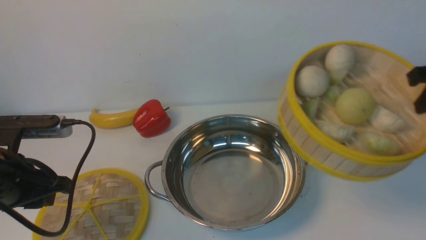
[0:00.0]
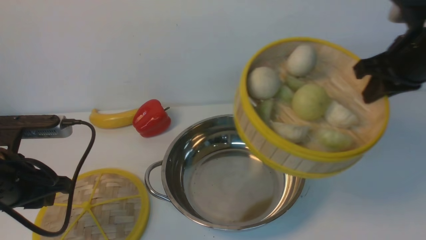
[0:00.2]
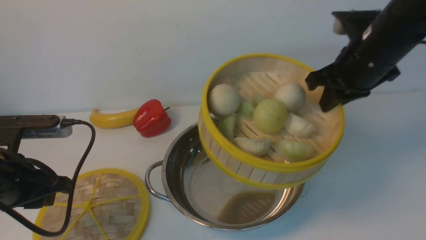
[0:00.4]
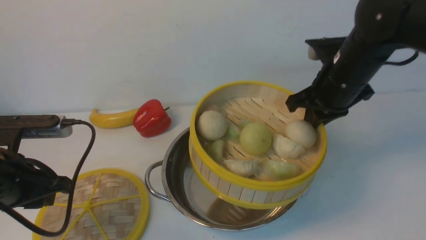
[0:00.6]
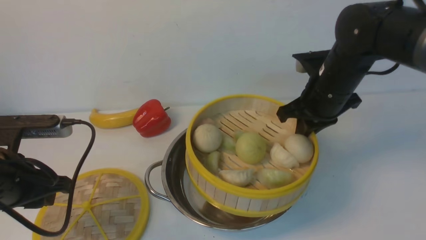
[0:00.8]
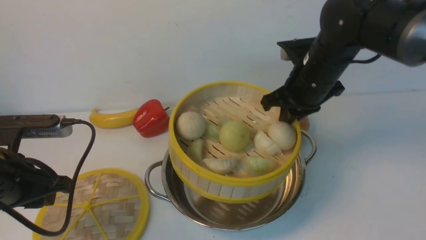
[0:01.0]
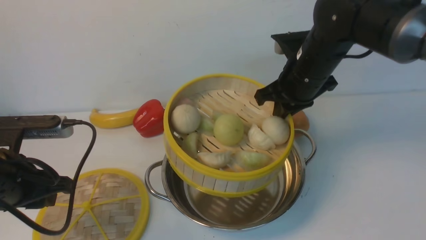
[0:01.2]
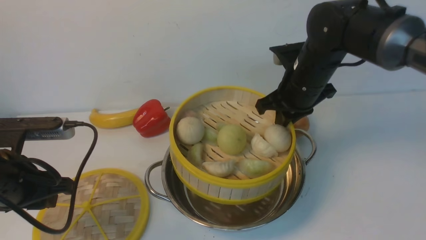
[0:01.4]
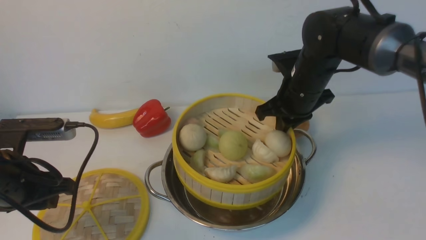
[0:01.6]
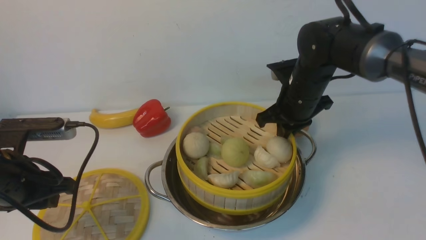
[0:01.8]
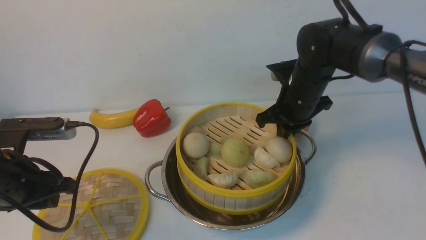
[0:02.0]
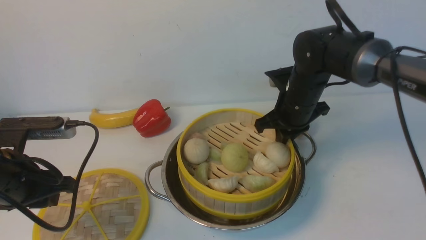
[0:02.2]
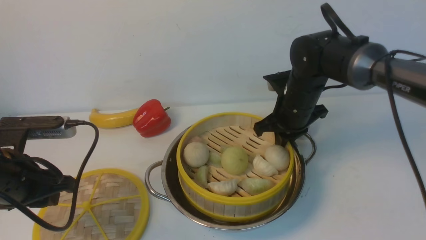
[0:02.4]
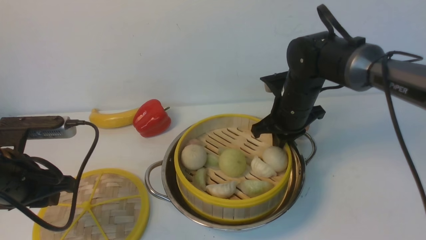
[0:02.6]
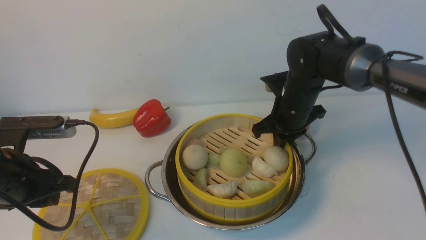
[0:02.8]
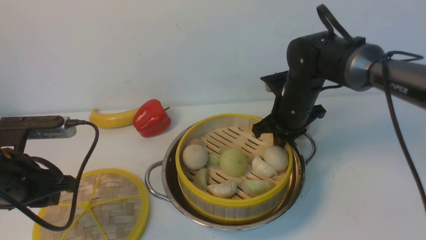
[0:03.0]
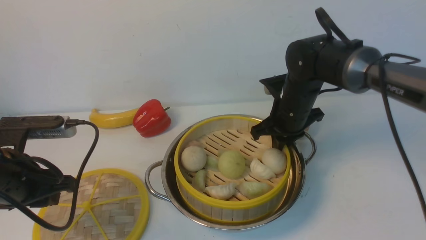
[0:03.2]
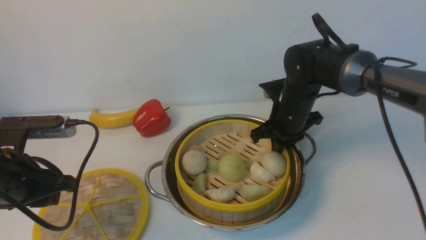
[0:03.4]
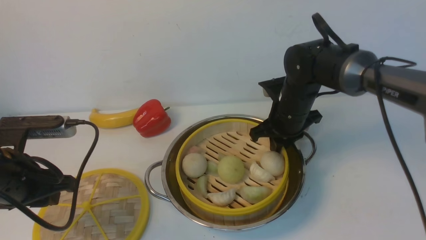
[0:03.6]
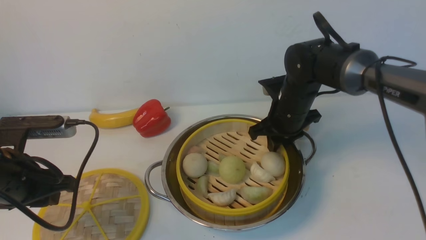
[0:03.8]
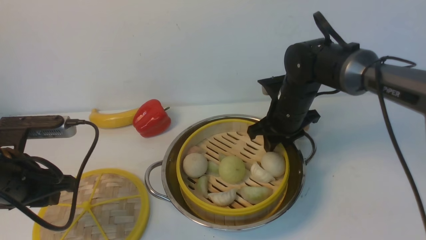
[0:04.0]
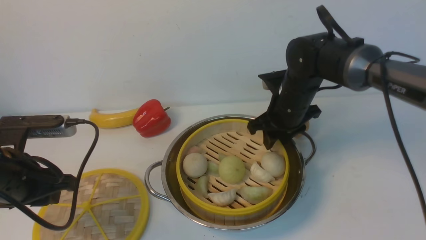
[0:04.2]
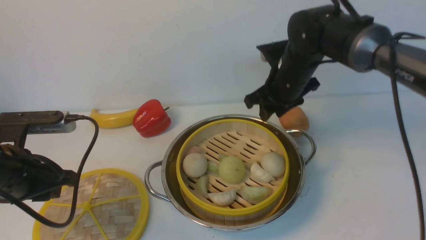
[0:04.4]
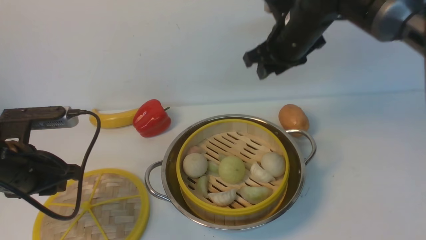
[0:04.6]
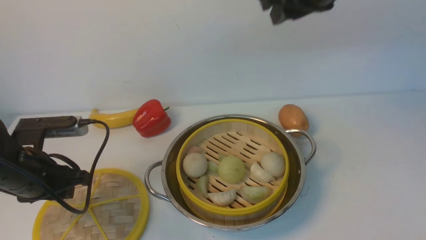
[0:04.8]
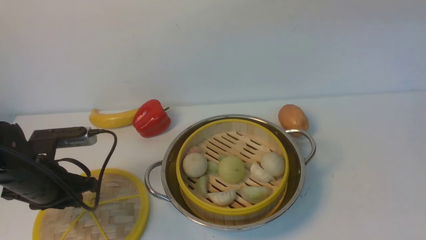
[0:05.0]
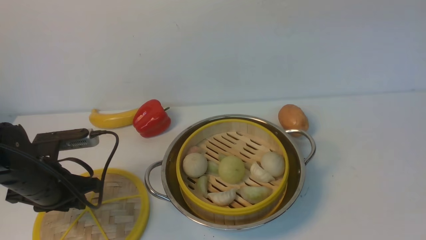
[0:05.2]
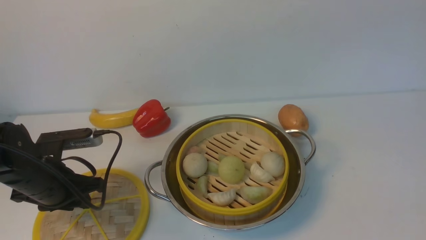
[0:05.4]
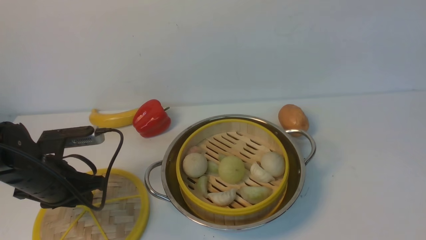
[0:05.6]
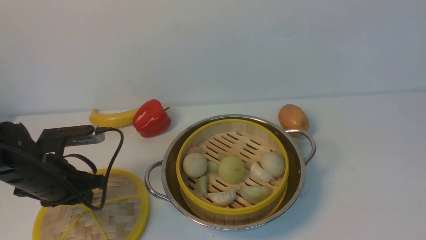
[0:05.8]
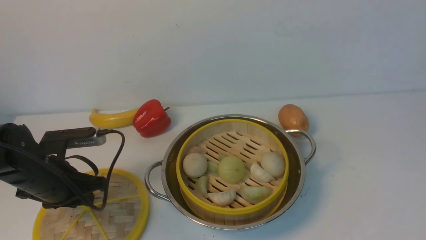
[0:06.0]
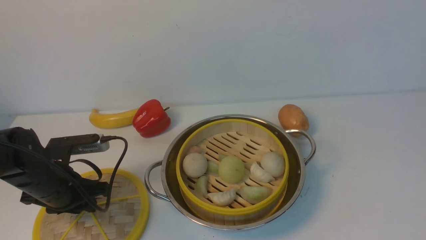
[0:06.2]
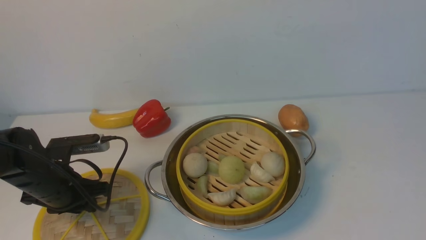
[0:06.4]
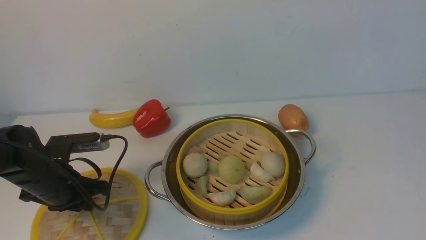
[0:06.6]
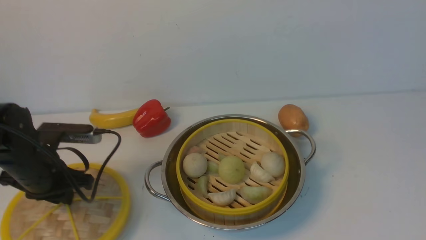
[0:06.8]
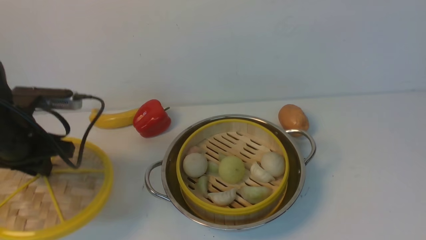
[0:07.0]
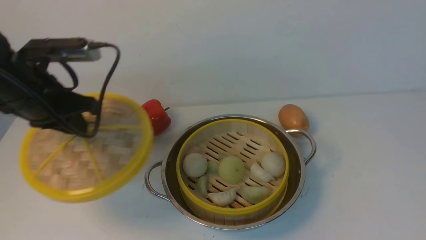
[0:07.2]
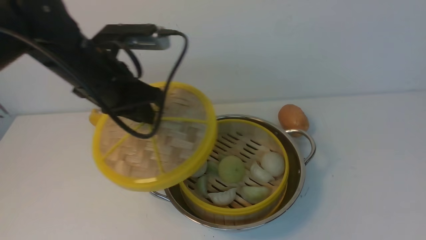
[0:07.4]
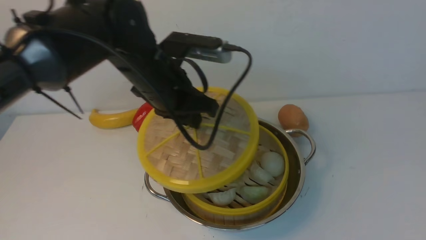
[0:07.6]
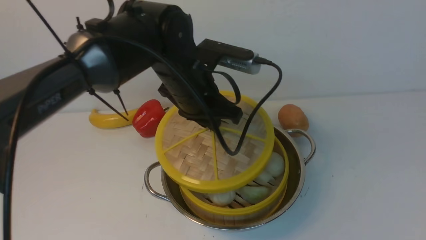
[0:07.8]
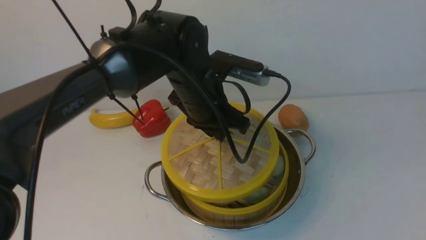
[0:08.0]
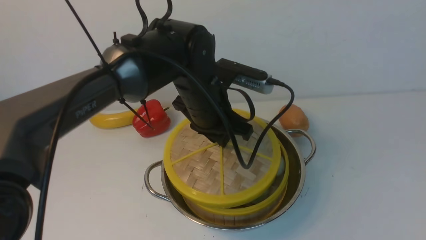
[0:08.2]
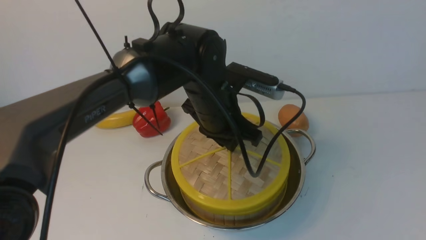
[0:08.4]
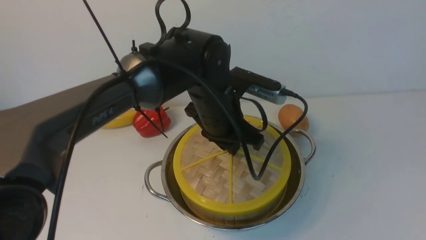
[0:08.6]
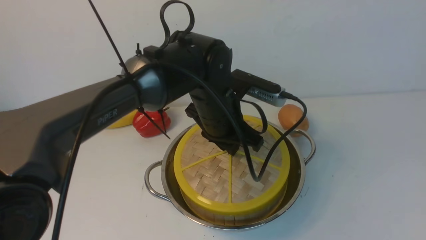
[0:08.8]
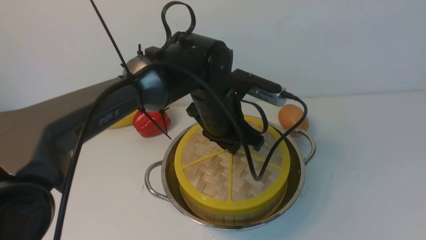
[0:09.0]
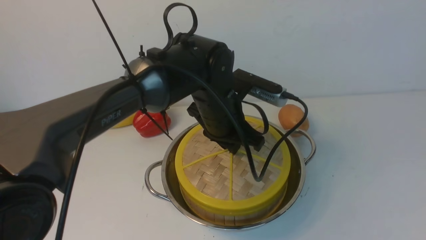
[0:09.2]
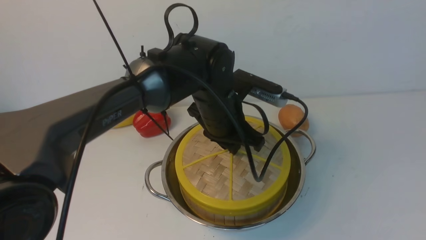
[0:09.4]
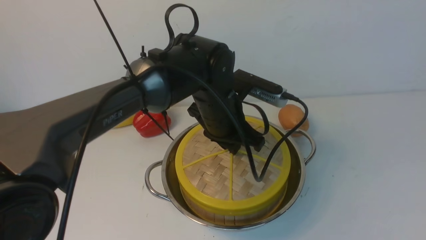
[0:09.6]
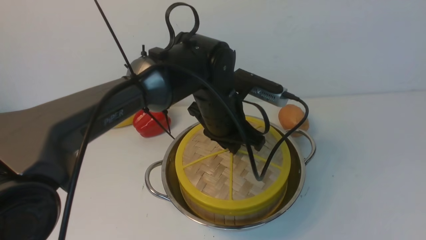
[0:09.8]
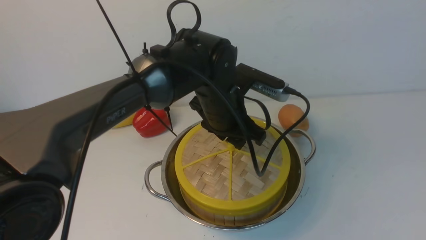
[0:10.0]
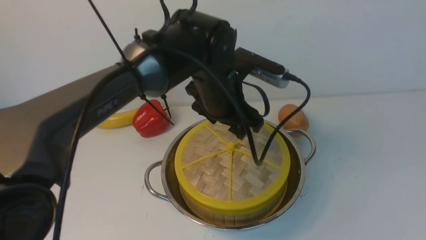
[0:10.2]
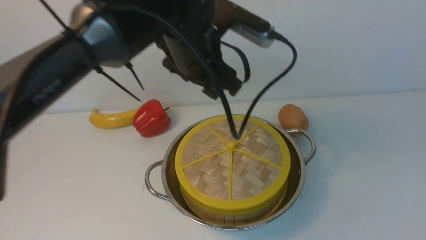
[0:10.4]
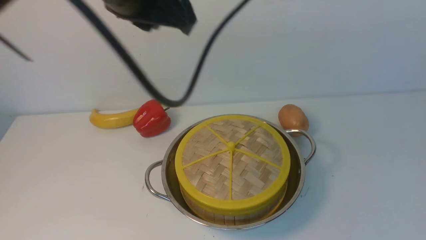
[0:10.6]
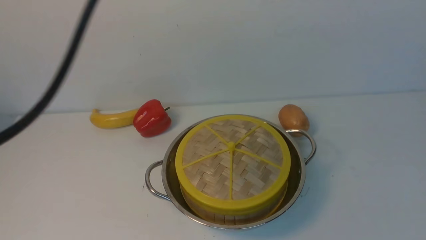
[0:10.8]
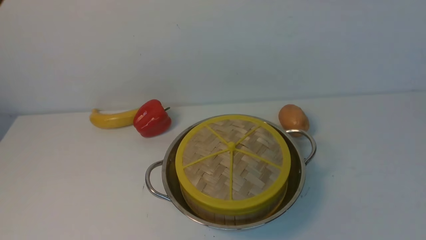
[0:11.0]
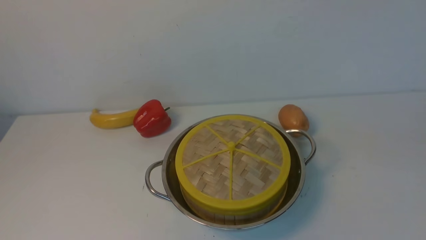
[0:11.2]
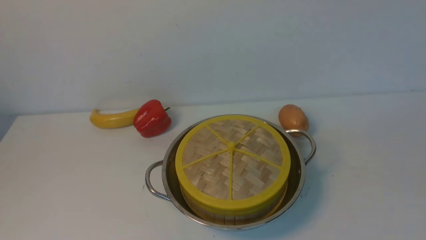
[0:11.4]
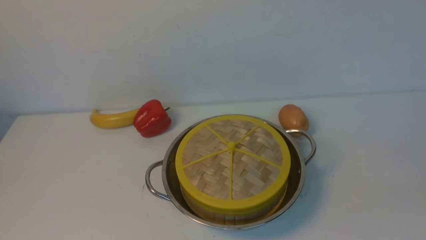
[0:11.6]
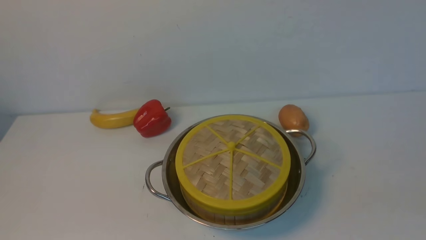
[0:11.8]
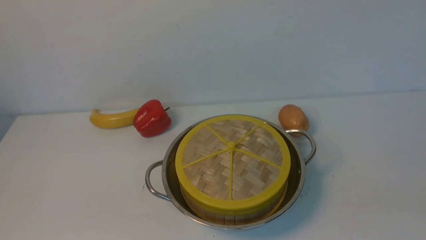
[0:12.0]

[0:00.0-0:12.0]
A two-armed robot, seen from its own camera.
Task of the whole recording: place the steamer in the pot on the white table, and put the lid on the steamer.
Step, 0:00.0 to 0:04.6: use the right arm to put the steamer into the iron steamer pot in the middle.
Step, 0:04.8 to 0:06.8: use the left arm to lift the lid of the steamer.
Step, 0:07.2 to 0:10.4: use the left arm to place the steamer lid on the steamer.
0:00.0 to 0:01.6: The right gripper shifts about 20 cm to the left, downward and forward.
0:01.6 to 0:03.0: The grippers make only small movements.
0:03.0 to 0:04.4: The right gripper travels upward by approximately 5 cm, and opens up.
0:04.4 to 0:06.0: The right gripper moves backward, upward and to the right, roughly 40 cm. Meanwhile the left gripper goes about 5 cm downward.
0:06.0 to 0:07.6: The left gripper is displaced to the right and upward by about 20 cm, and closes its fingers.
0:07.6 to 0:09.0: The left gripper moves to the right and downward, some 10 cm.
0:09.0 to 0:10.4: The left gripper shifts approximately 15 cm upward, and opens.
0:10.4 to 0:12.0: The right gripper is displaced downward and backward by about 20 cm, and closes up, while the left gripper is displaced backward and to the left by about 40 cm, and closes its fingers.

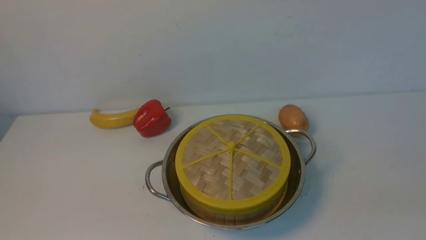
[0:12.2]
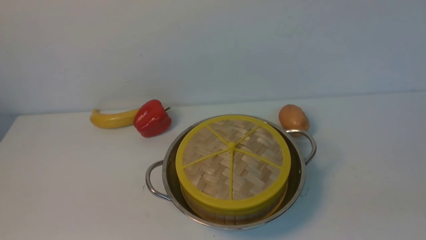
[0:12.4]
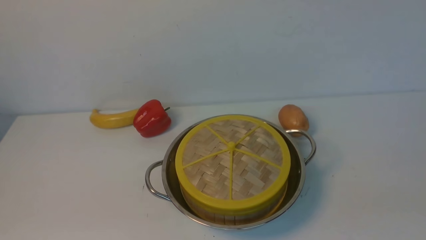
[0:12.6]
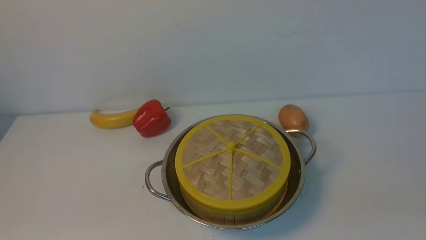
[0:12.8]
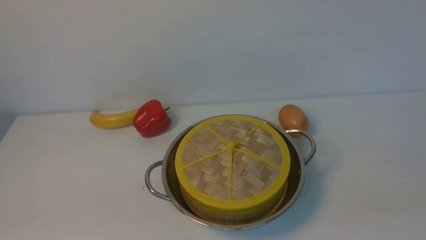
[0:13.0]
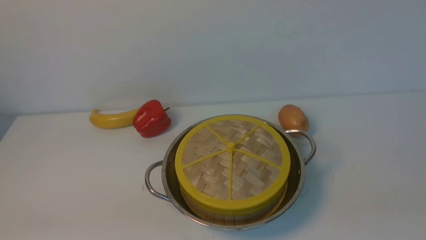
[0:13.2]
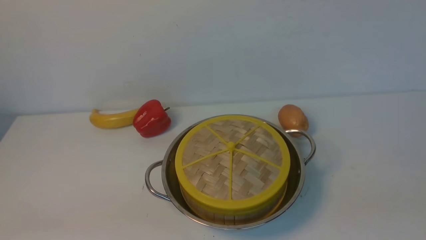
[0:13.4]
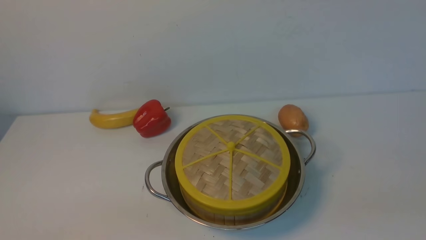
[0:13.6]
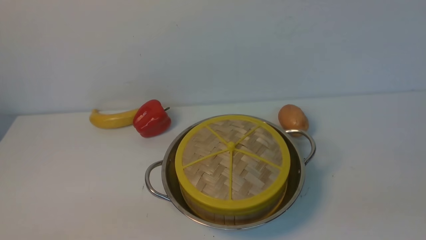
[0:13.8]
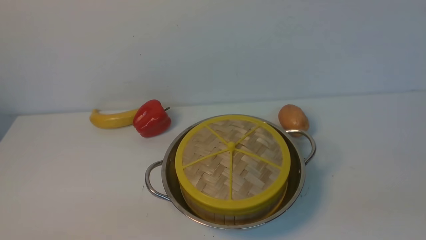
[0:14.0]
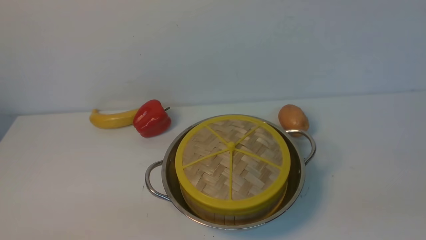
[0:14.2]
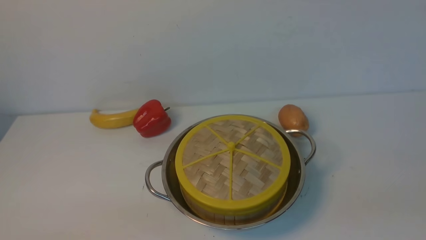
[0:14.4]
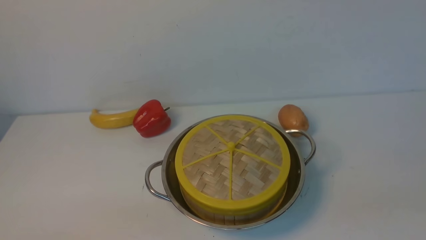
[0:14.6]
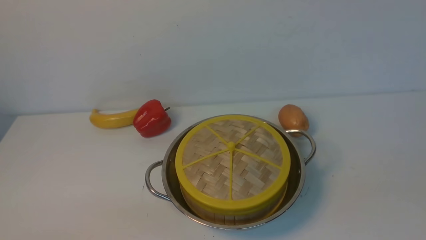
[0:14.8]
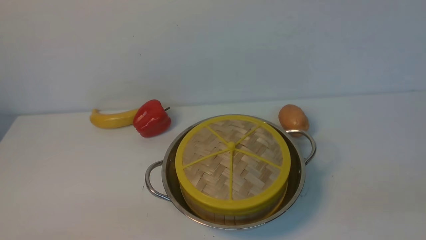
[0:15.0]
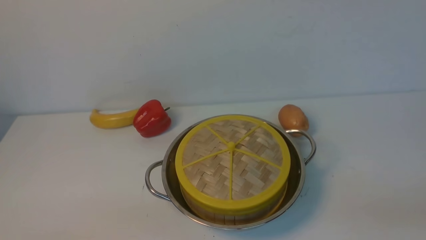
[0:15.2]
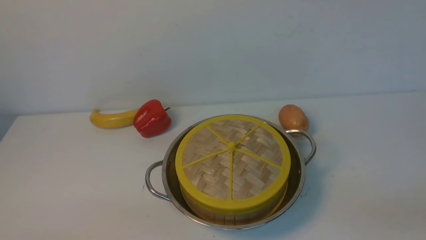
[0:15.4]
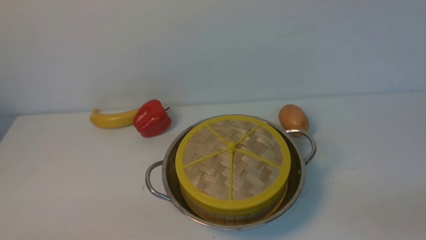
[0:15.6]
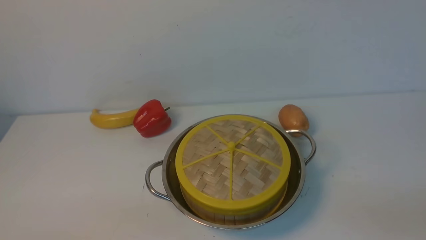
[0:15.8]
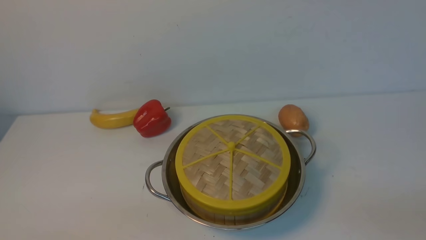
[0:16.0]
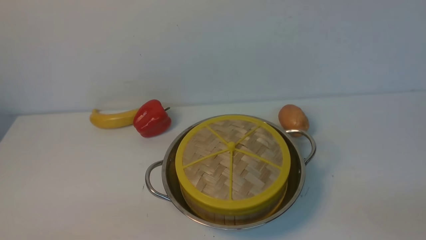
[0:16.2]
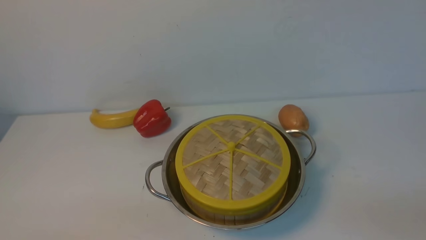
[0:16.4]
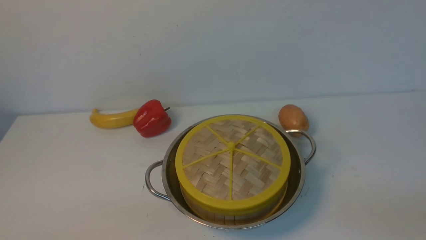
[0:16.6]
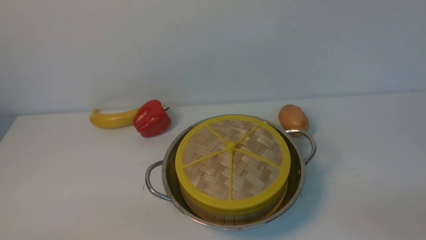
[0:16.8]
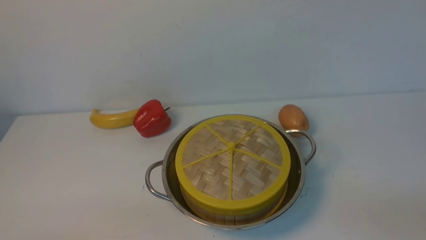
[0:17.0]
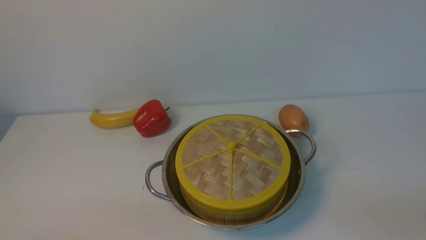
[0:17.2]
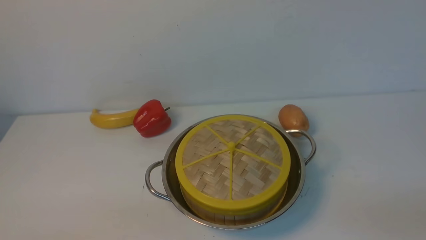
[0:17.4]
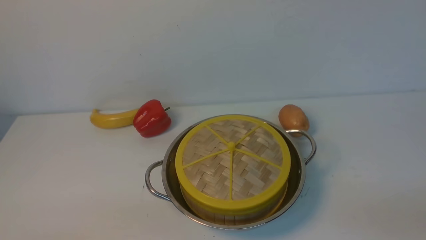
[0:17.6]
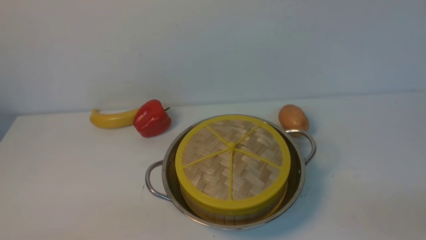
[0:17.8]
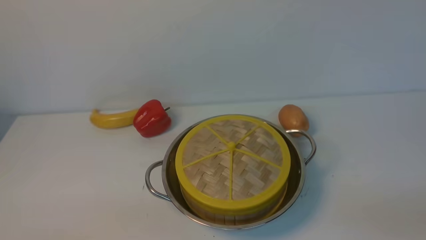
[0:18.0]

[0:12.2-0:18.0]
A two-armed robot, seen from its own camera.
Task of the whole recording: place the steamer in the pot on the white table, and put the lid on the steamer.
0:16.6 to 0:18.0: Both grippers stay put.
